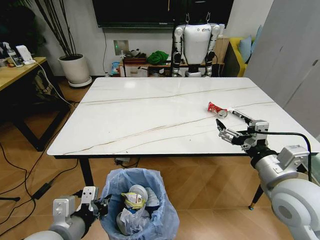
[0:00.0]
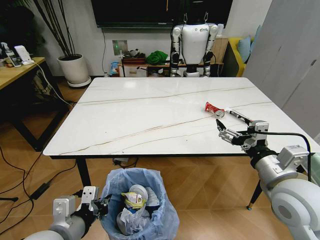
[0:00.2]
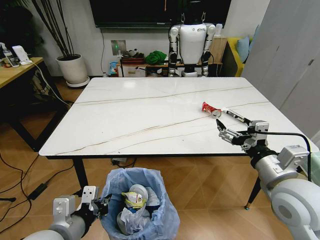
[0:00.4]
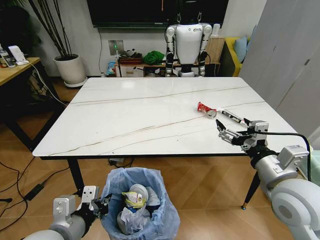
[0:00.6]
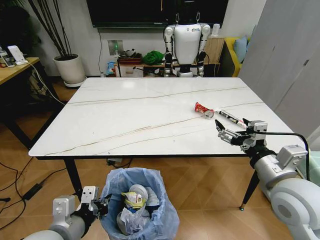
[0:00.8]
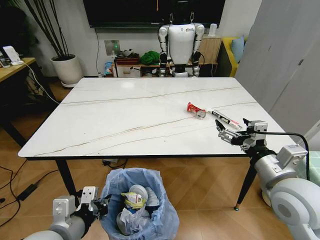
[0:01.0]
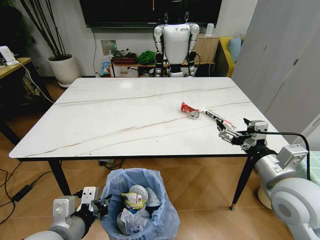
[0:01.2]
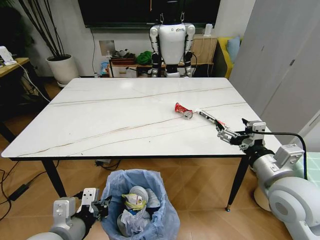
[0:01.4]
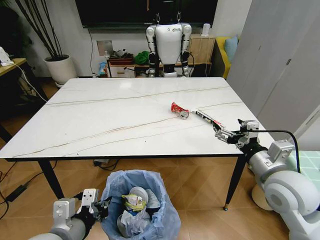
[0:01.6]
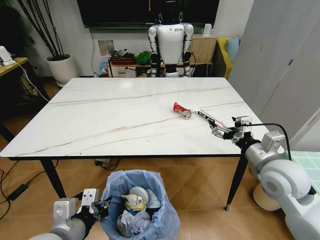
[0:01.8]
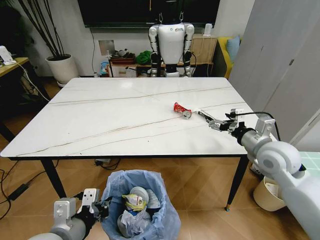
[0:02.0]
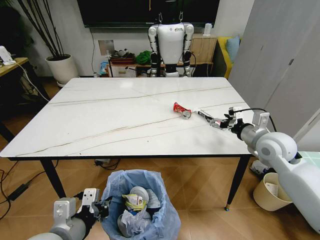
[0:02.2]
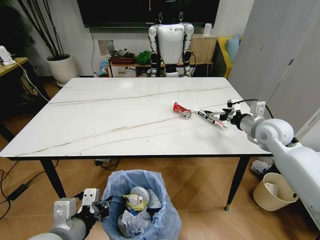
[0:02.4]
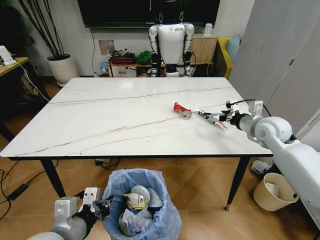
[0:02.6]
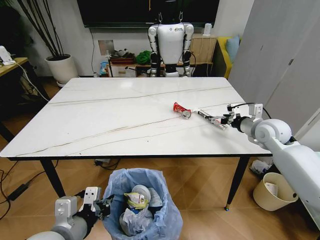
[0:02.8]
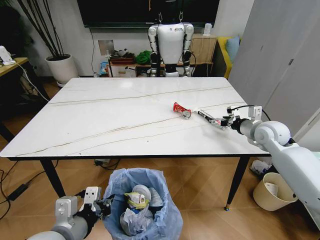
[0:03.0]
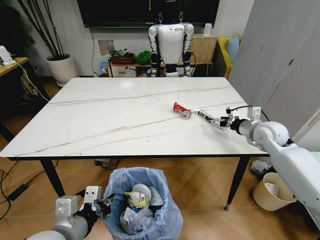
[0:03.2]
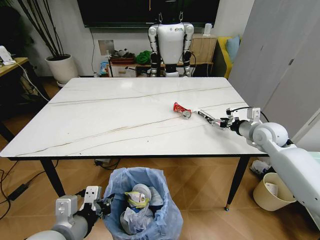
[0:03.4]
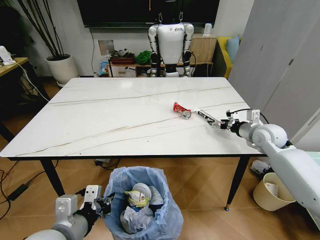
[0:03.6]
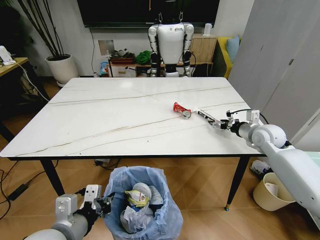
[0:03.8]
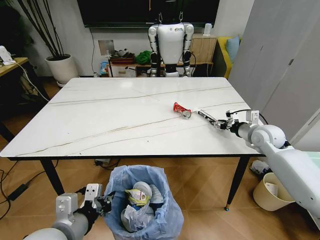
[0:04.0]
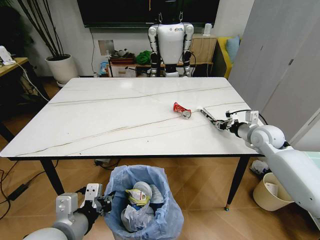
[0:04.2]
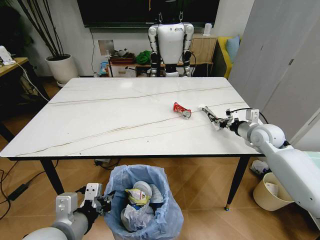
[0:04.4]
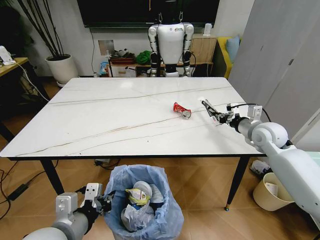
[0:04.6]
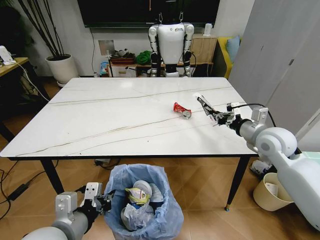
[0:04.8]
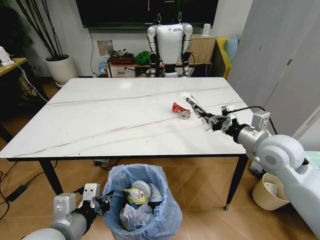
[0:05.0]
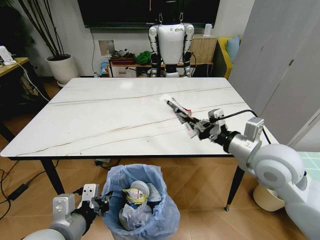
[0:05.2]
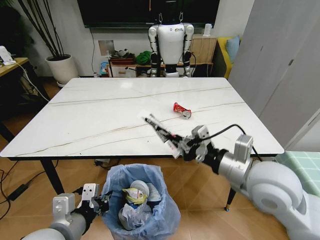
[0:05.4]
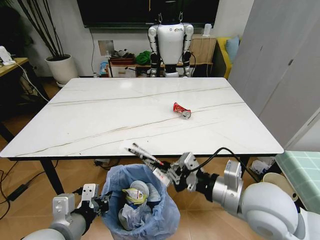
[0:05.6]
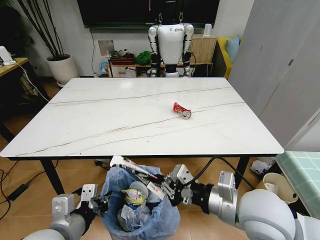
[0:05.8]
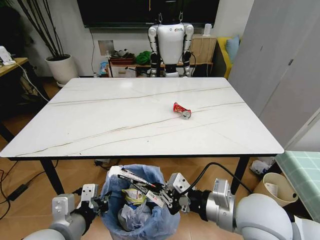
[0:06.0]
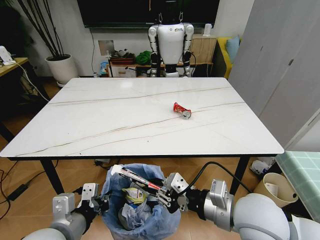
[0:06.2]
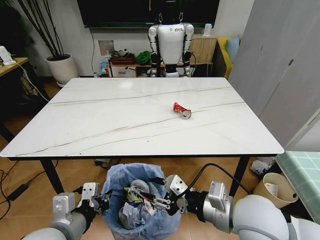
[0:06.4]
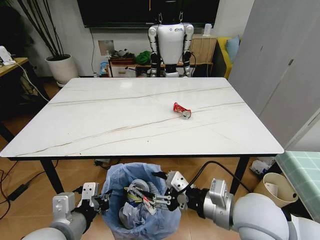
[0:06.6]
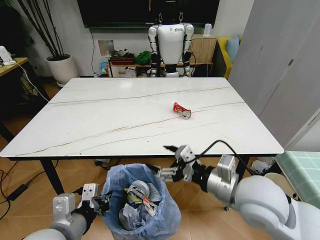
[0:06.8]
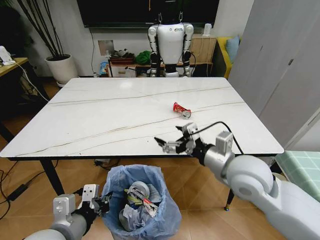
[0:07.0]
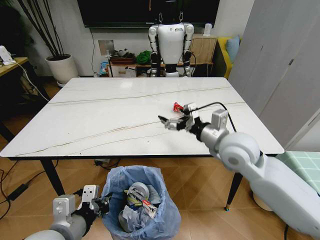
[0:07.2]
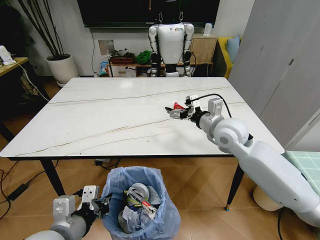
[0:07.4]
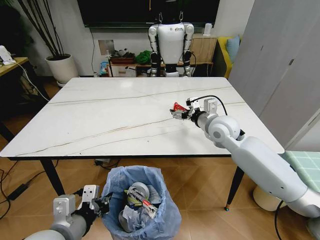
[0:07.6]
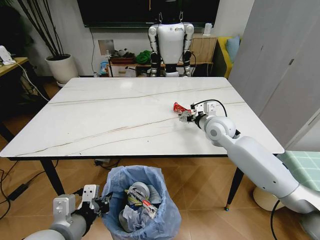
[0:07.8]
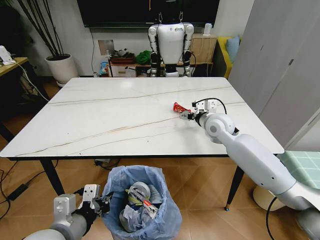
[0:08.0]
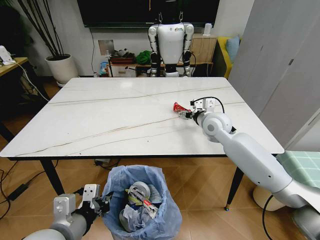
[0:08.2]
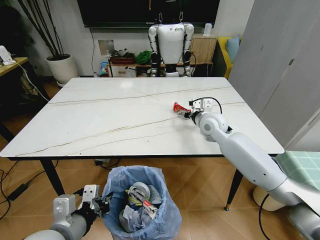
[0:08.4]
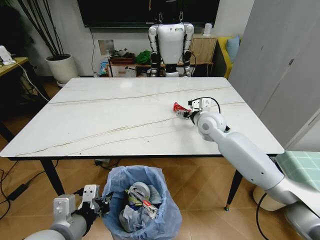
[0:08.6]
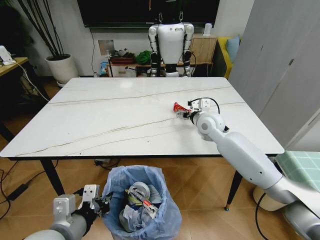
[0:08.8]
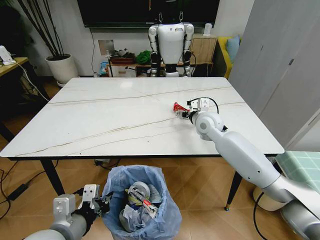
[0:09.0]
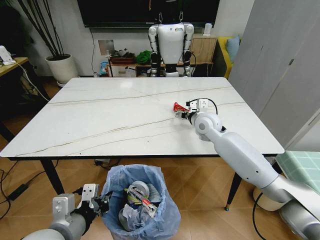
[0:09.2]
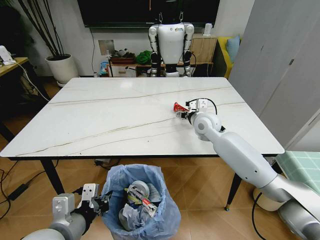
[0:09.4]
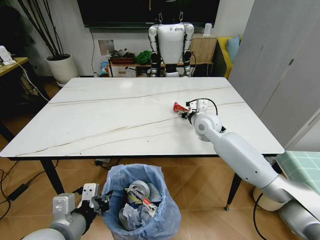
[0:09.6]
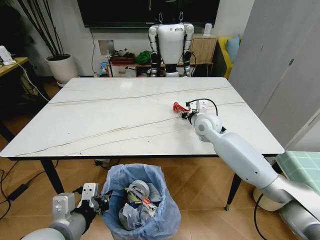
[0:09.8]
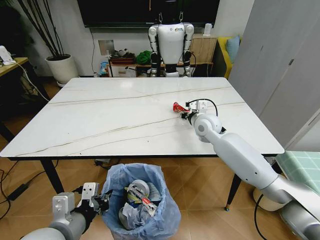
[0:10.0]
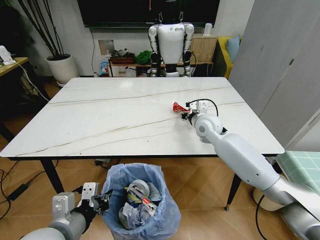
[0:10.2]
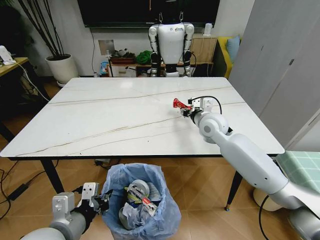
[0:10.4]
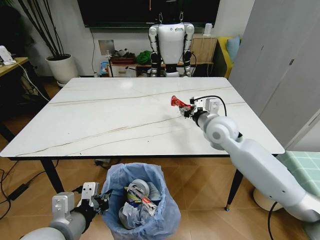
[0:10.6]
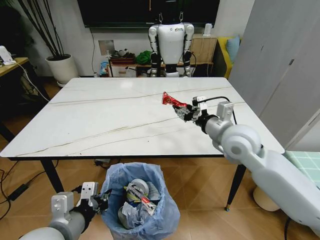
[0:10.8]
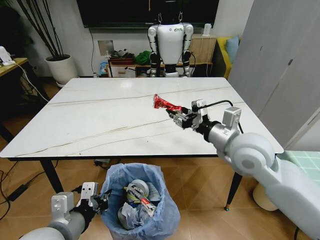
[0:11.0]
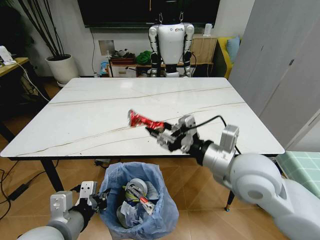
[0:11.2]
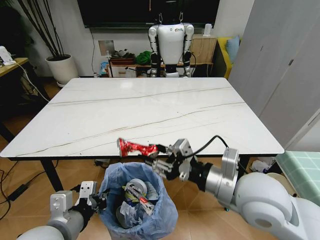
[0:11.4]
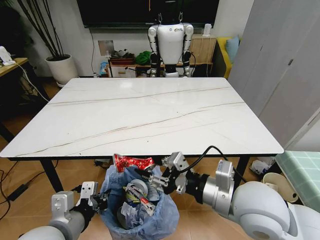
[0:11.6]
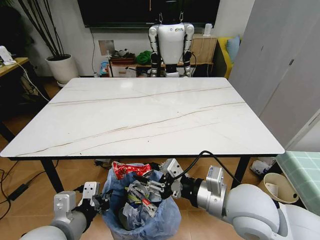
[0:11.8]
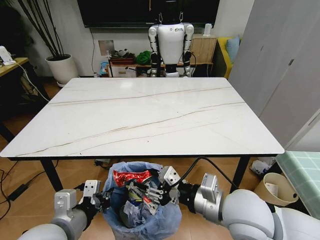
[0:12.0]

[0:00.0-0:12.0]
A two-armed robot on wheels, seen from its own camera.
Task of the whole recording: Pick up the trash bin and place the trash from the table into it.
0:01.6 to 0:03.0: The right gripper moves forward and to the right, some 20 cm.
0:03.0 to 0:04.4: The right gripper closes.
0:04.4 to 0:06.0: The right gripper moves backward and to the left, some 35 cm.
0:06.0 to 0:07.6: The right gripper heads forward, covering approximately 25 cm, and opens its fingers.
0:07.6 to 0:09.0: The right gripper shifts roughly 5 cm forward.
0:09.0 to 0:10.4: The right gripper closes its fingers.
0:10.4 to 0:12.0: The right gripper goes approximately 30 cm backward.

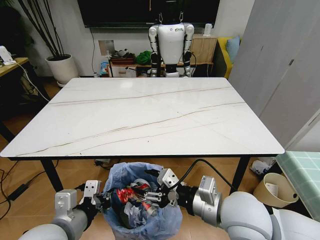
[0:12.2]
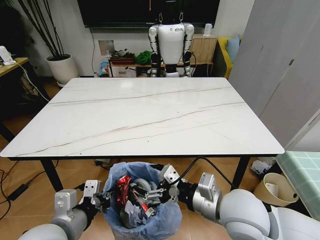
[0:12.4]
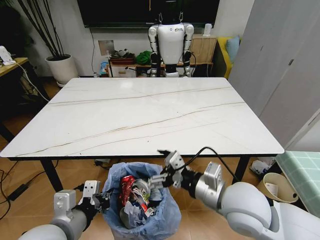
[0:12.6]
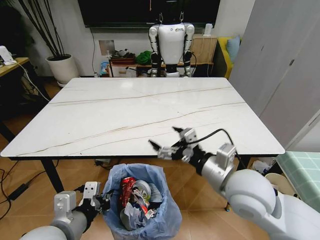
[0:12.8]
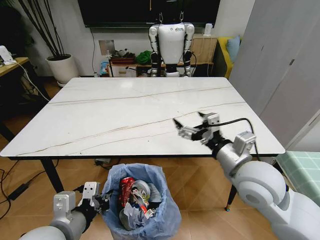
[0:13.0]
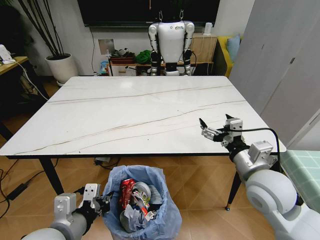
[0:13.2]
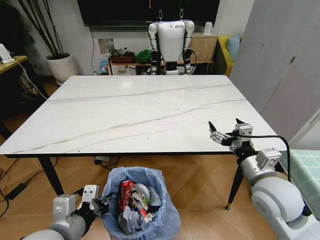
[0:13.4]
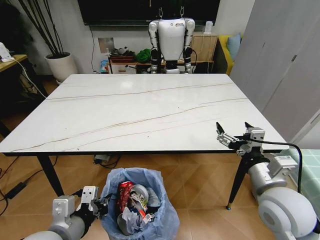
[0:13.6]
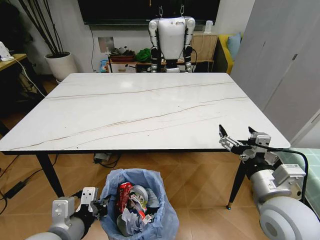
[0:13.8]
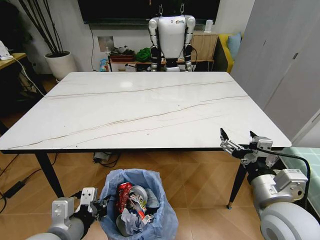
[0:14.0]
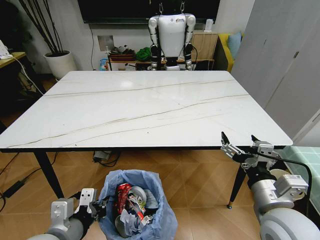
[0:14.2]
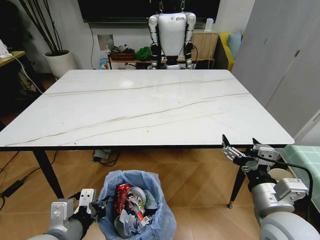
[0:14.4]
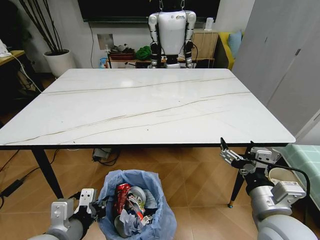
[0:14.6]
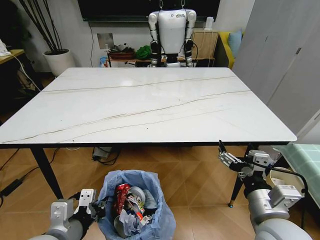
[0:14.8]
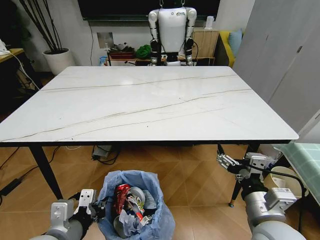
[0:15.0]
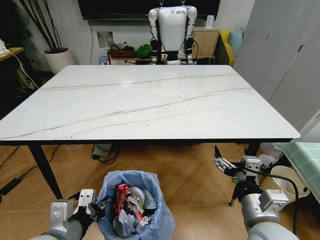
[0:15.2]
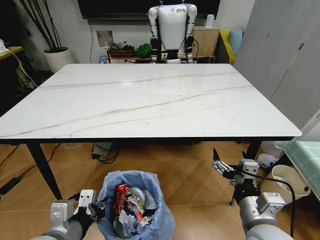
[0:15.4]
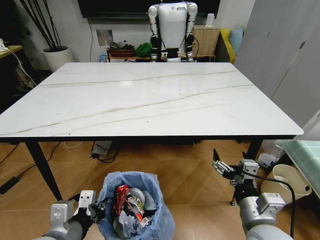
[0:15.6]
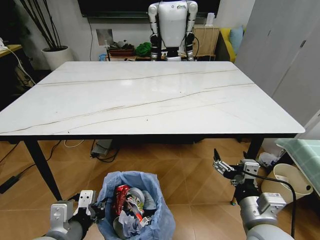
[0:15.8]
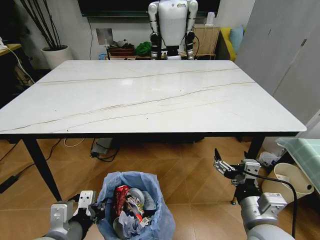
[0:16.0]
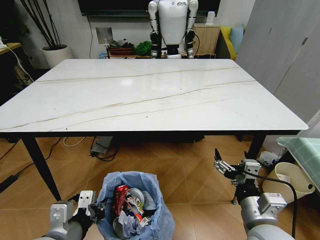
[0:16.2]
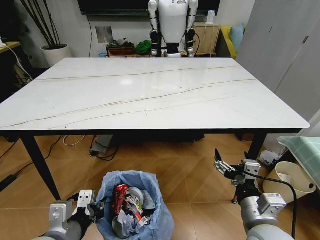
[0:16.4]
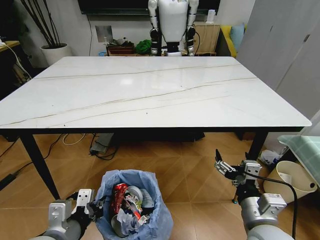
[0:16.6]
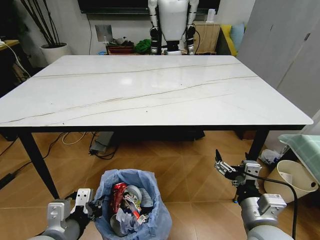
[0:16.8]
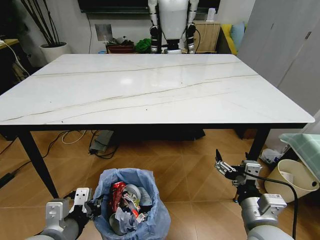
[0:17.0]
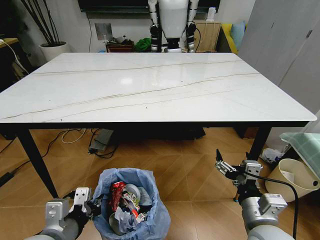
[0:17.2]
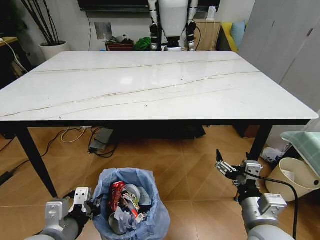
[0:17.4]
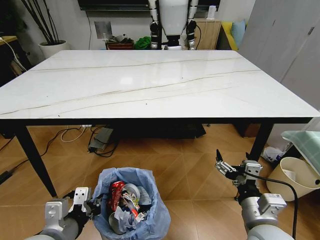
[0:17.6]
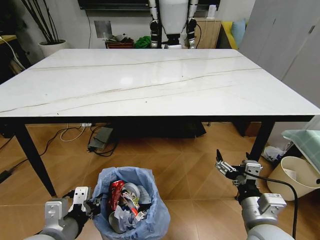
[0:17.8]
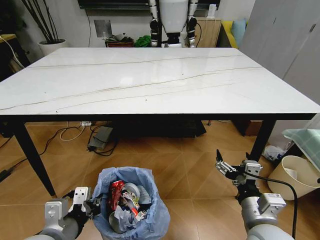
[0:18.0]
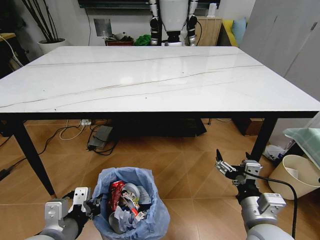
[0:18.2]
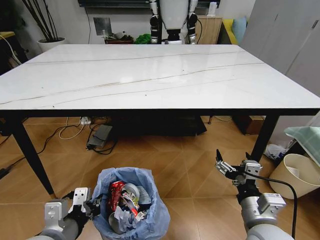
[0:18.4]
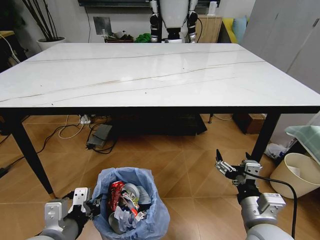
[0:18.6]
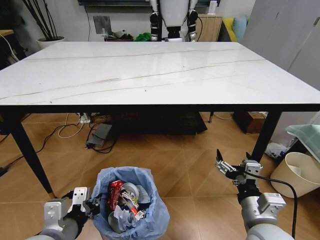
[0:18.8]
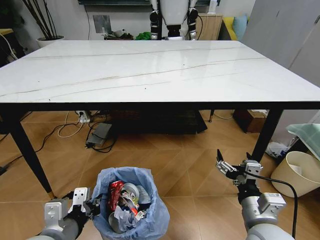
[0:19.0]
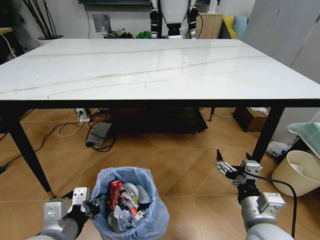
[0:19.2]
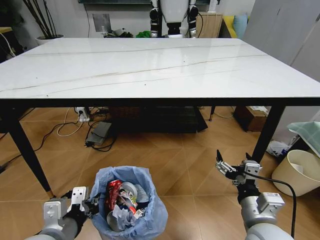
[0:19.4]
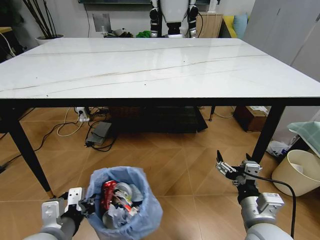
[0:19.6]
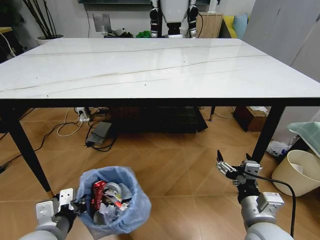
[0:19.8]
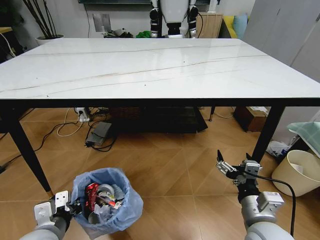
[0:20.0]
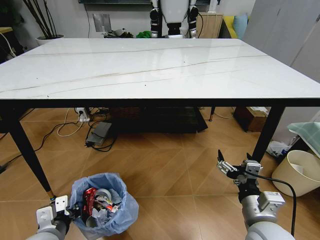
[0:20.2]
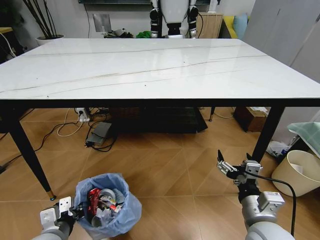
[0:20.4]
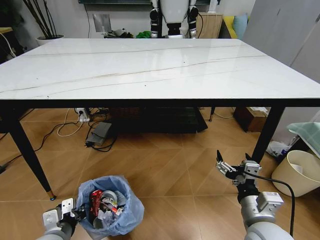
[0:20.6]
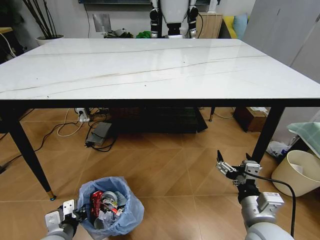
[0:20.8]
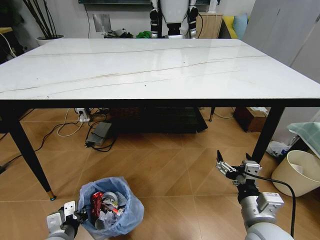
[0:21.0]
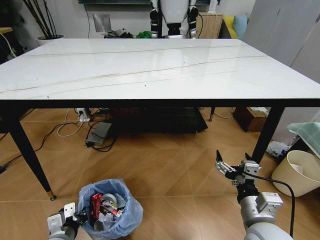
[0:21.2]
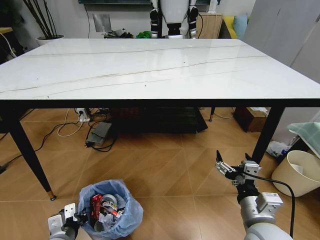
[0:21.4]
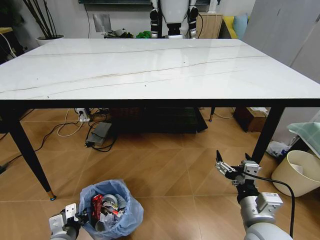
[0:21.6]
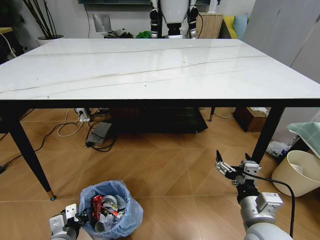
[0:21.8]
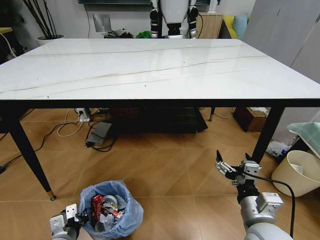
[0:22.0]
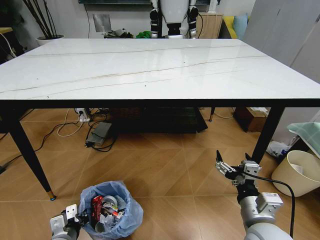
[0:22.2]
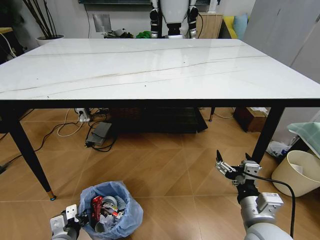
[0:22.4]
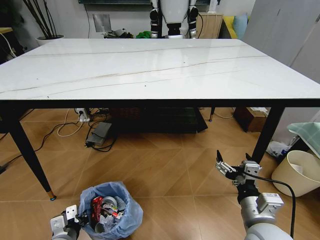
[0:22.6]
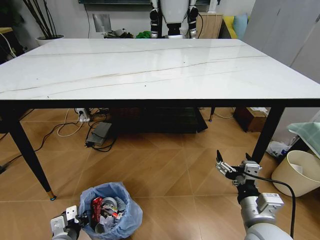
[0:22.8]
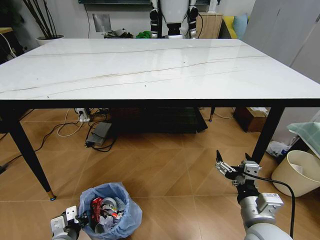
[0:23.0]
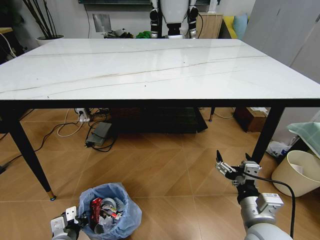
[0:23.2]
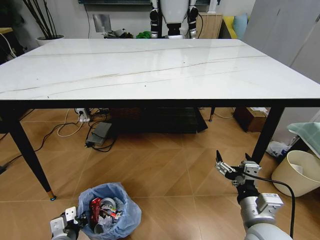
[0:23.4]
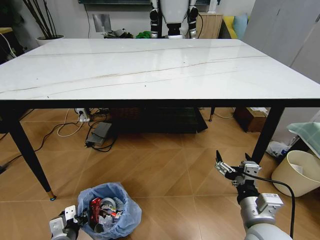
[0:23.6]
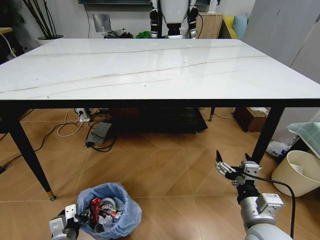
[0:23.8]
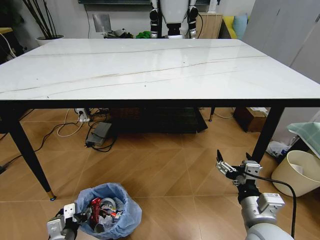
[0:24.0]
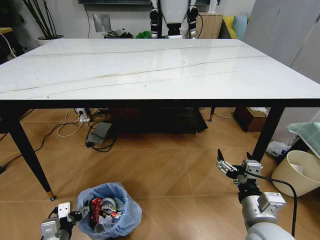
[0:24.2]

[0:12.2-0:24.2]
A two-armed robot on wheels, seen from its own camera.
Task of the whole recording: Pick up the trash bin and place the trash from the table into it.
0:12.2 to 0:13.8: The right gripper heads to the right, covering about 10 cm, and opens its fingers.
0:13.8 to 0:15.2: The right gripper shifts by some 5 cm.
0:18.2 to 0:19.8: The left gripper ends up about 5 cm from where it was.
0:19.8 to 0:21.2: The left gripper travels downward by some 15 cm.
0:21.2 to 0:22.6: The grippers stay close to where they were, moving slightly.
0:22.6 to 0:24.2: The left gripper opens its fingers.
